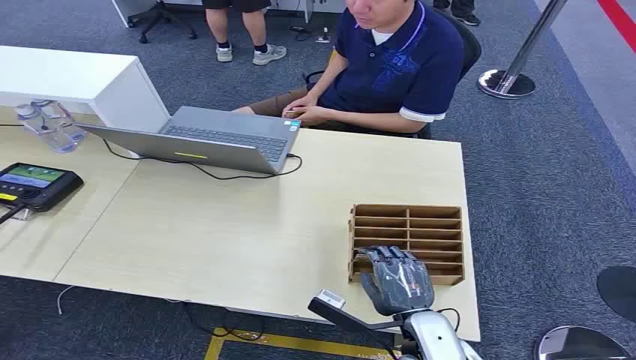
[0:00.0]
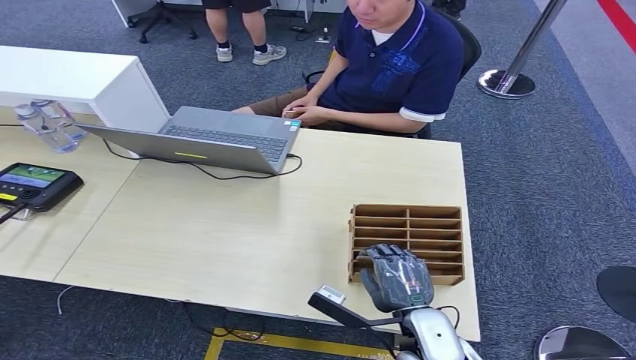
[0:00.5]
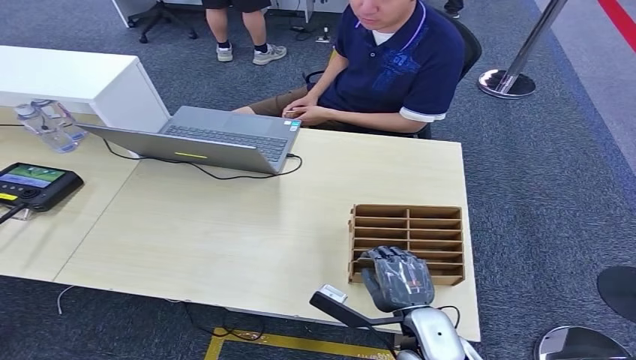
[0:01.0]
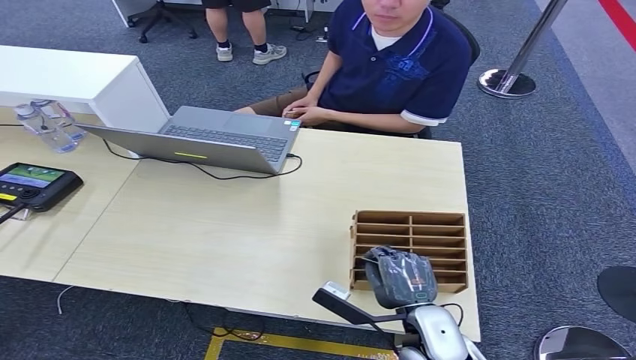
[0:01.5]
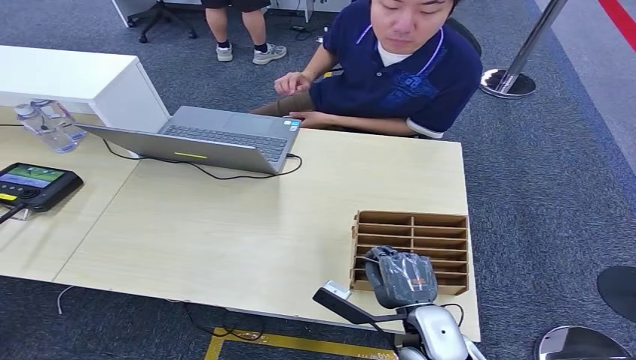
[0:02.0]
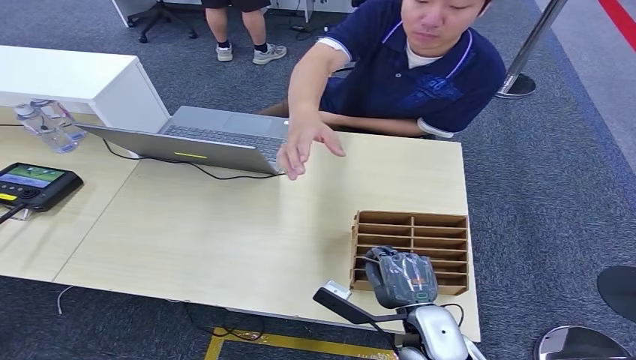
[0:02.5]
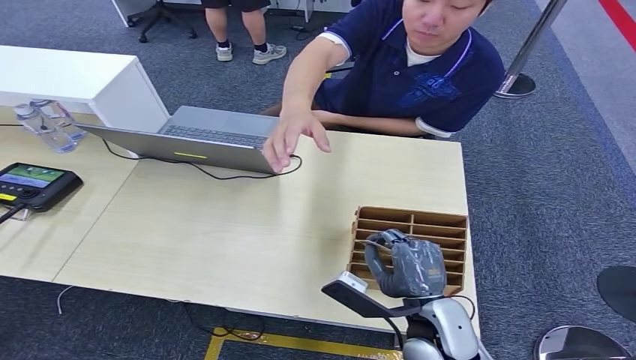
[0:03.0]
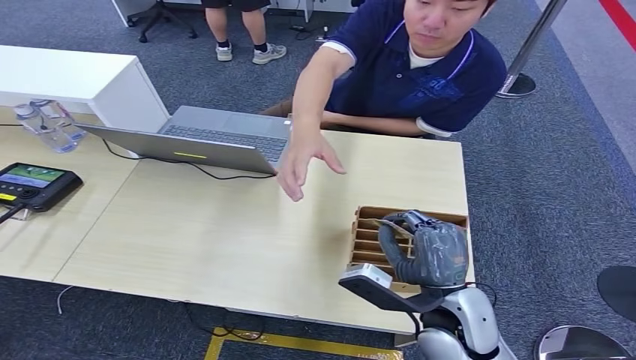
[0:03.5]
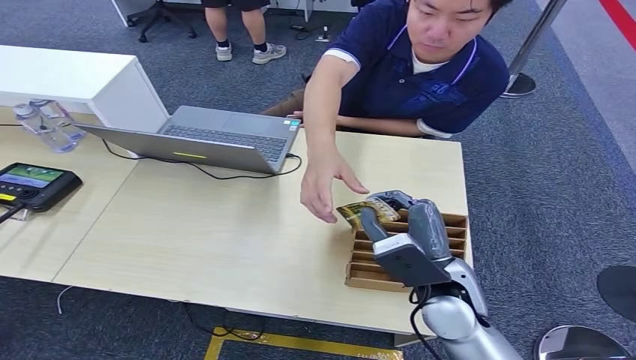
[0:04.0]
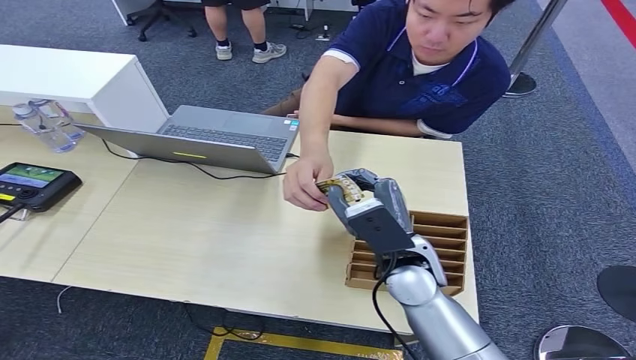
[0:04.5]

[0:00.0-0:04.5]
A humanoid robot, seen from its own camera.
Step, 0:00.0 to 0:02.5: Pick up the room card from the card holder.
Step, 0:03.5 to 0:04.5: Hand the room card to the target.
0:02.0 to 0:04.5: The right hand moves upward and forward, about 15 cm.
